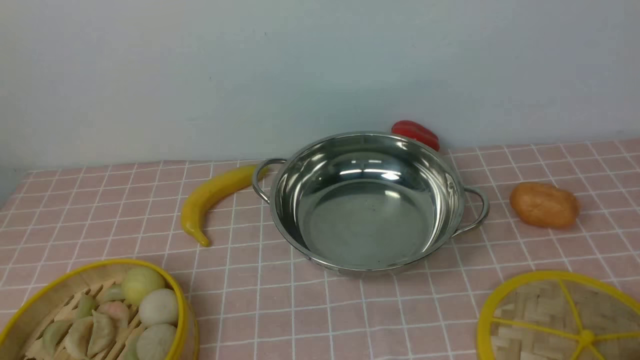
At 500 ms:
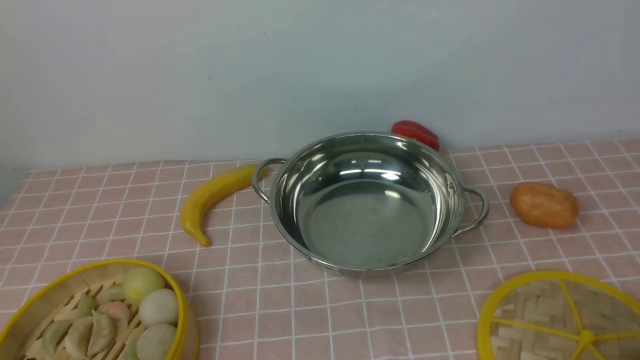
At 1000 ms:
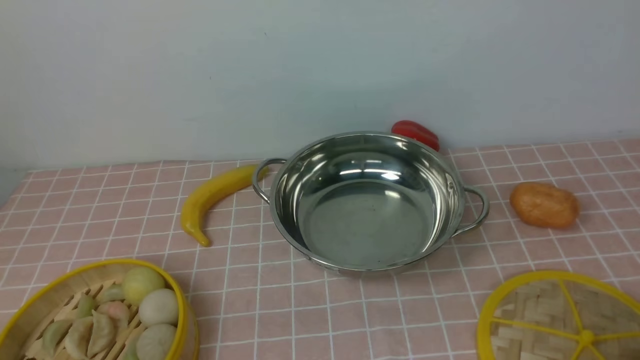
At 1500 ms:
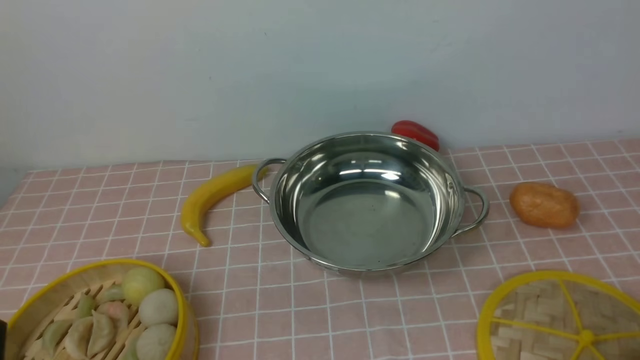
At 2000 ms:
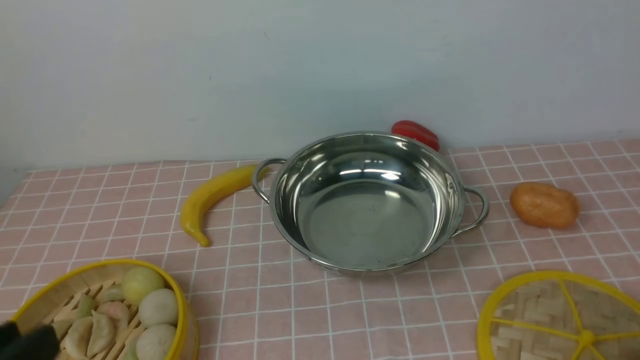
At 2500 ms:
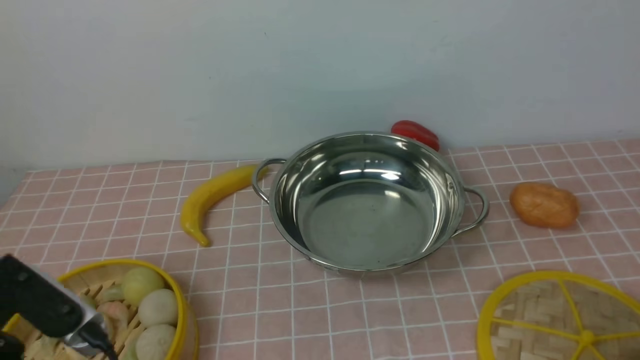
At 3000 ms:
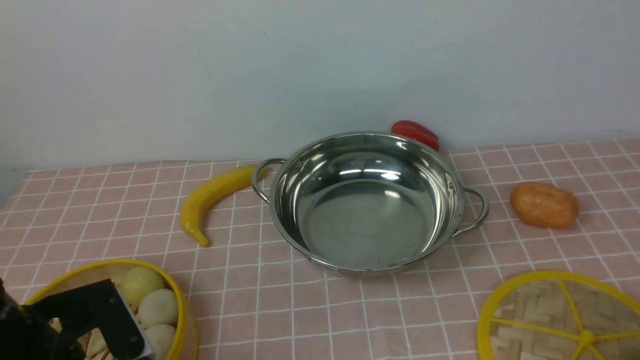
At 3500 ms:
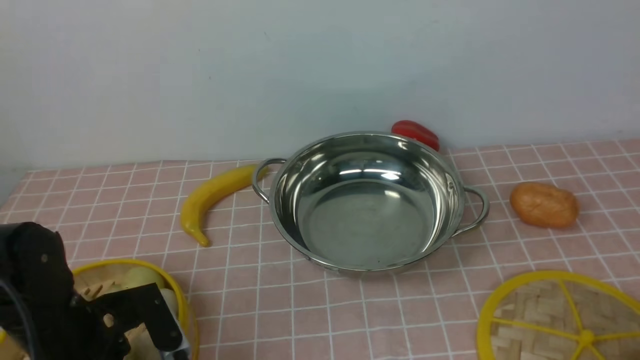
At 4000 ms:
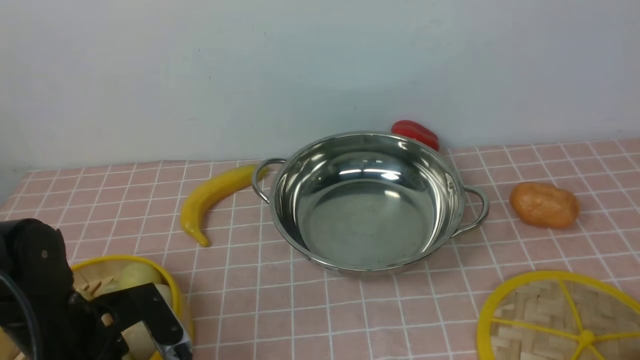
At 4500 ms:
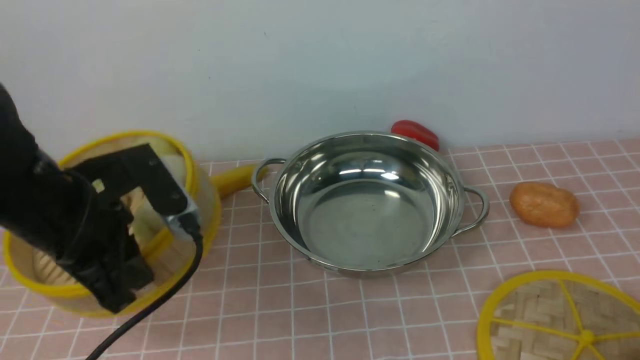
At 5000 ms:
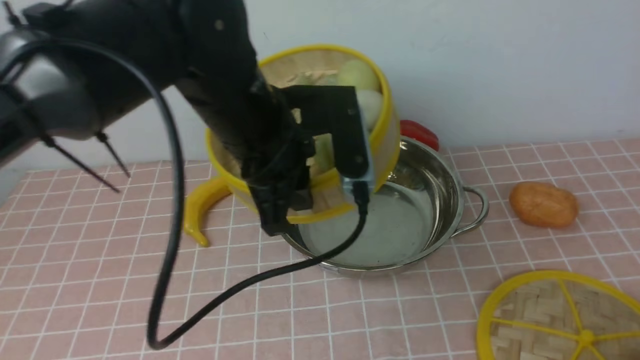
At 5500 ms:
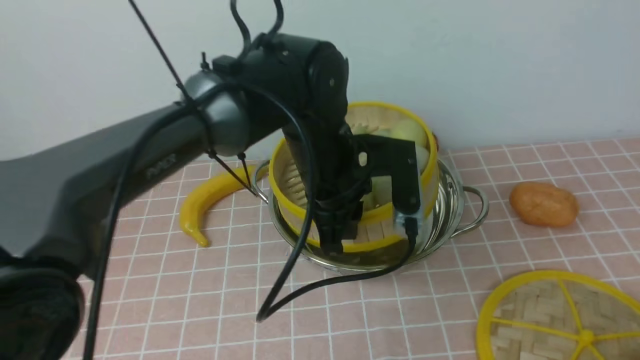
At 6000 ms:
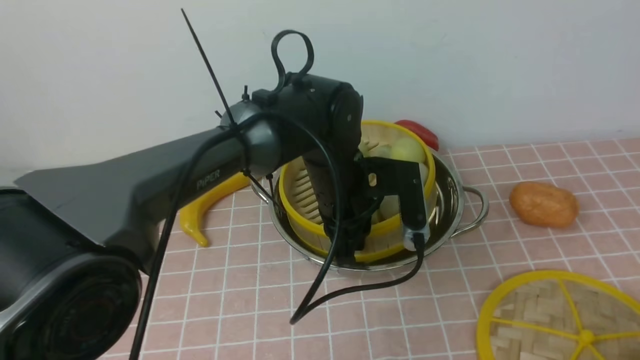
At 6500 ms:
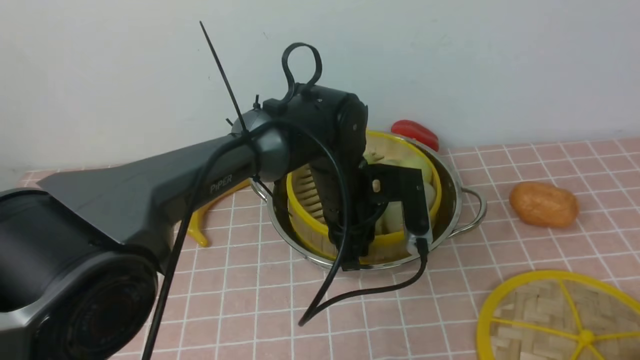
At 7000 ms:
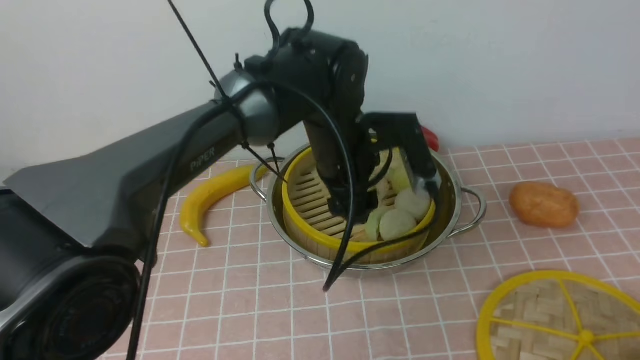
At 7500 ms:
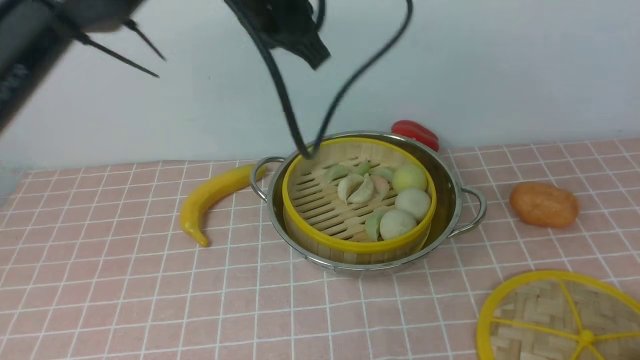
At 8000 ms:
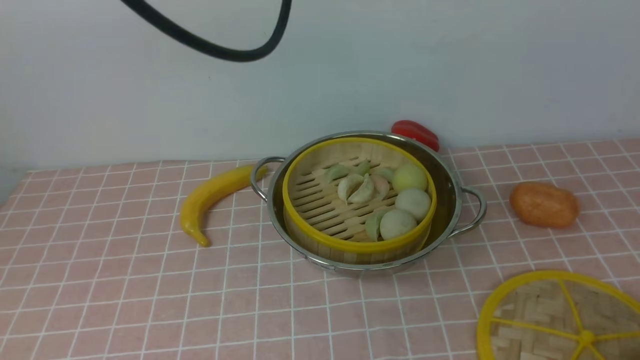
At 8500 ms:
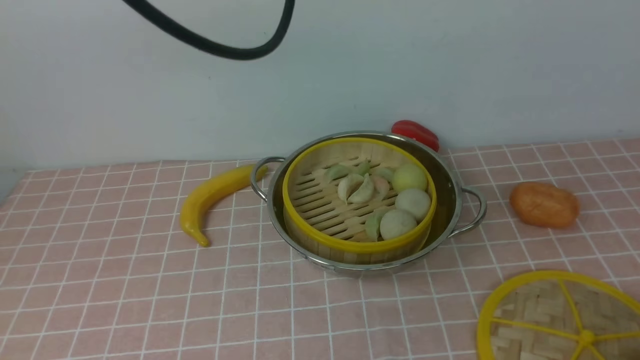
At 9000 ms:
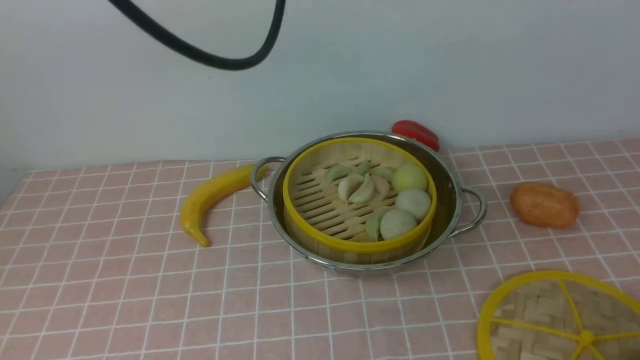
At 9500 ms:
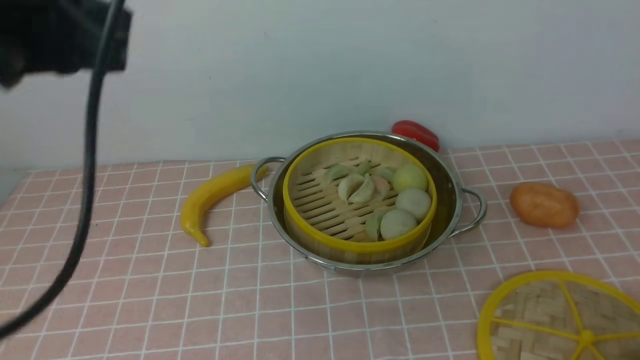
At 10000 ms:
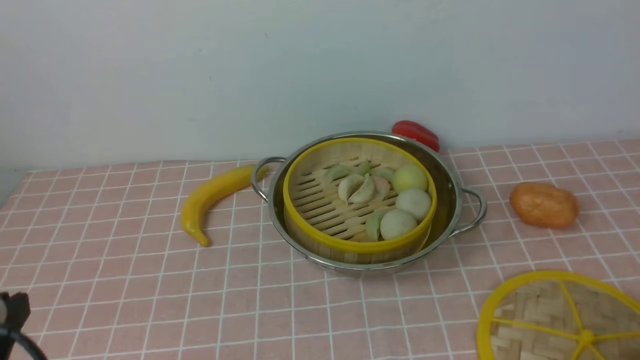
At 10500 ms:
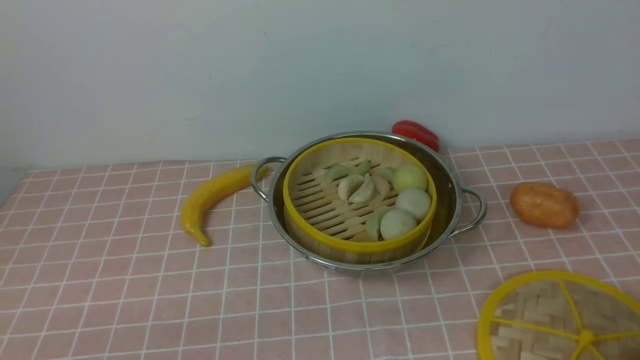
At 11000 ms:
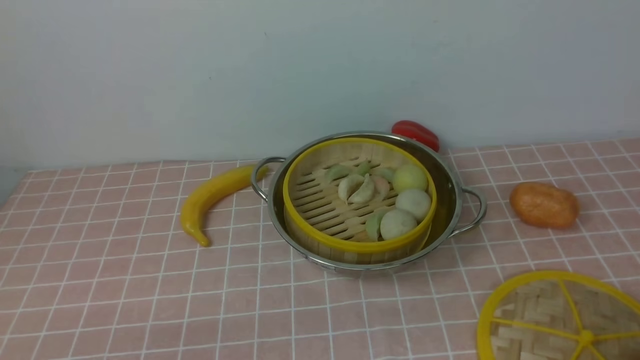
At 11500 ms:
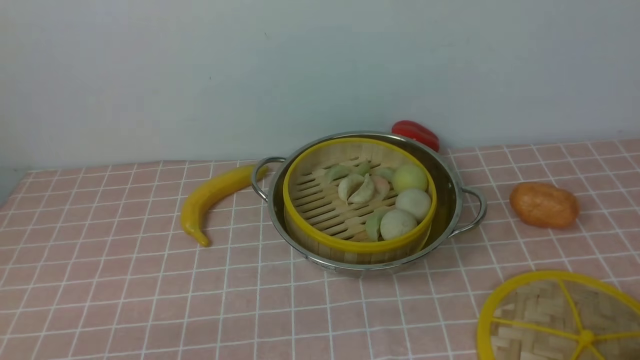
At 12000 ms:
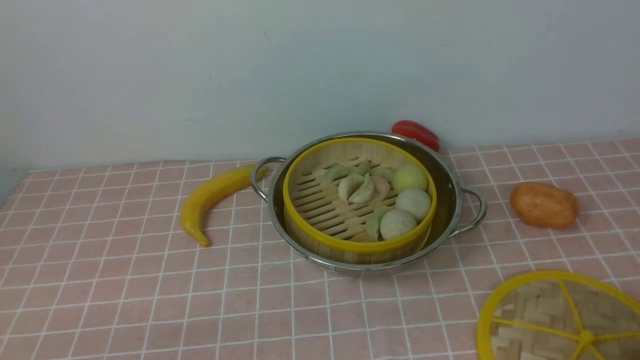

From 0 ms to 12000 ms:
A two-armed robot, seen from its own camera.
Task of the whole recording: place the steamer in the pot on the pink tablecloth, and put the lid on the steamer.
Step, from 0 ms to 4000 ms: use the left arm to lift the steamer closest to it.
Step, from 4500 ms to 6500 ms: use the left arm to put the steamer into the iron steamer pot in the middle.
From 2000 ms to 4000 ms: The left gripper travels forward and downward by some 20 cm.
From 4000 ms to 6000 ms: The left gripper moves to the right and forward, roughly 30 cm.
From 6000 ms to 8000 ms: The left gripper is displaced upward by about 30 cm, and opens and closes again.
From 8000 ms to 10000 ms: The left gripper shifts some 35 cm backward, downward and to the left.
From 10000 ms to 12000 ms: The left gripper moves downward, roughly 10 cm.

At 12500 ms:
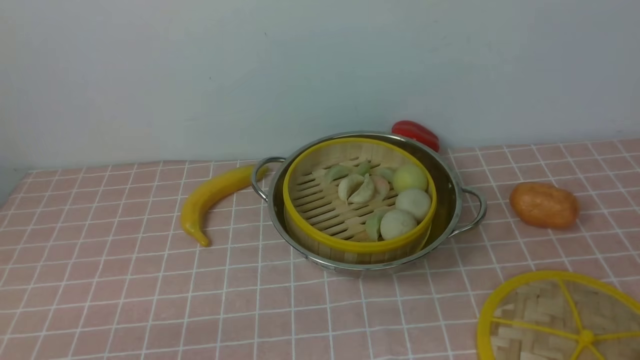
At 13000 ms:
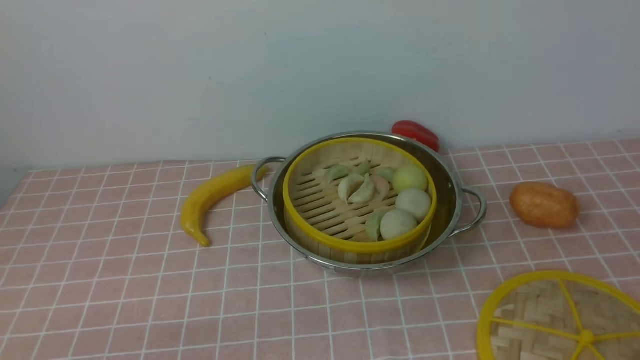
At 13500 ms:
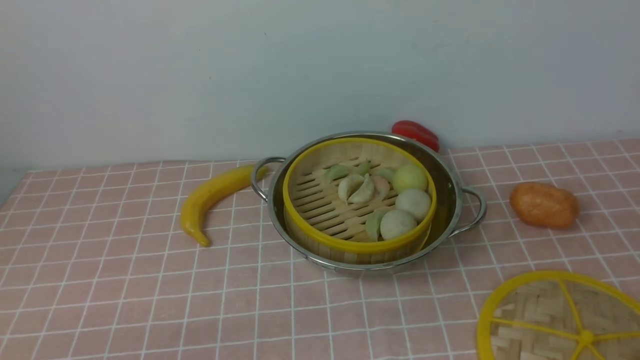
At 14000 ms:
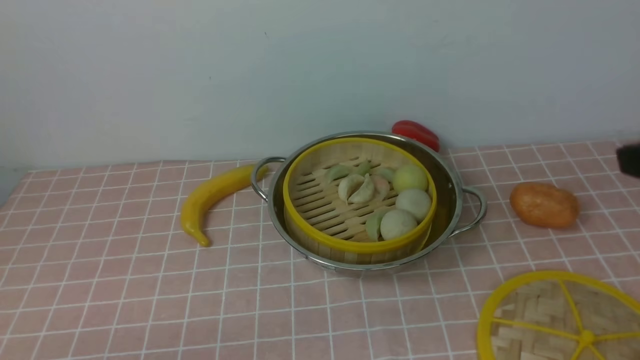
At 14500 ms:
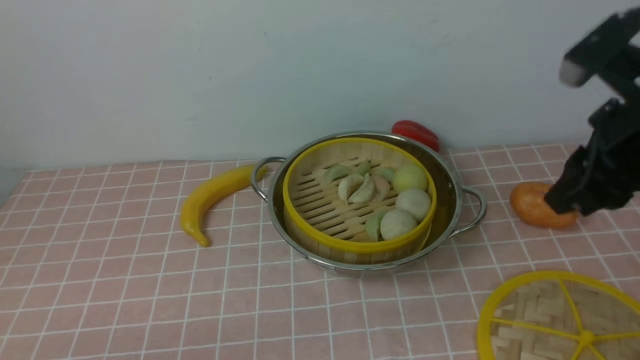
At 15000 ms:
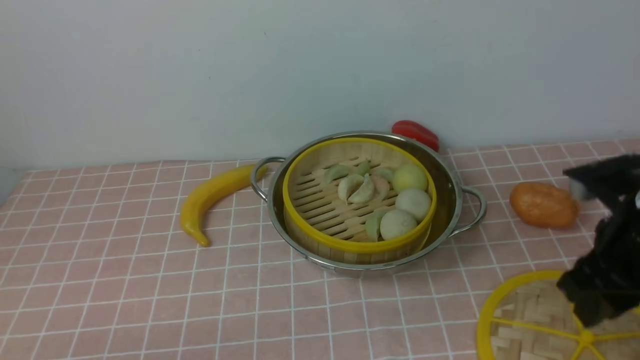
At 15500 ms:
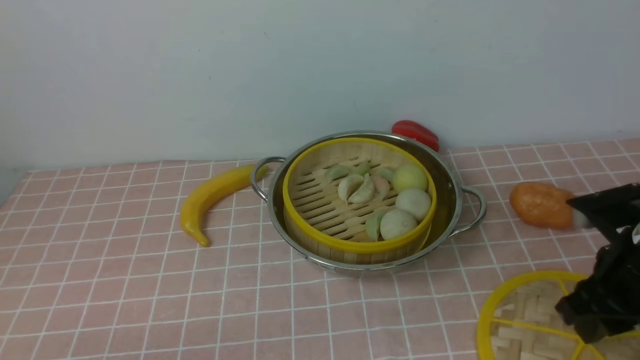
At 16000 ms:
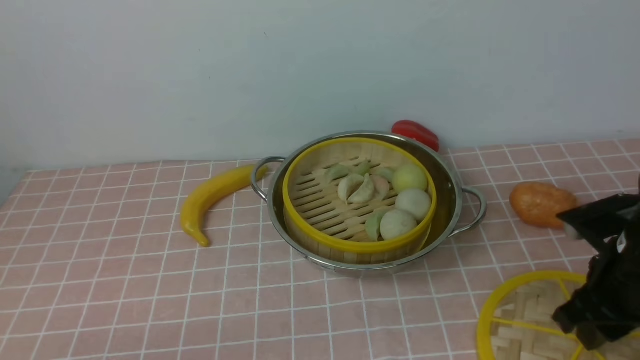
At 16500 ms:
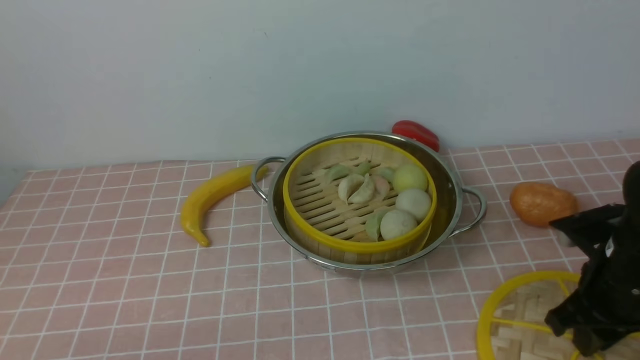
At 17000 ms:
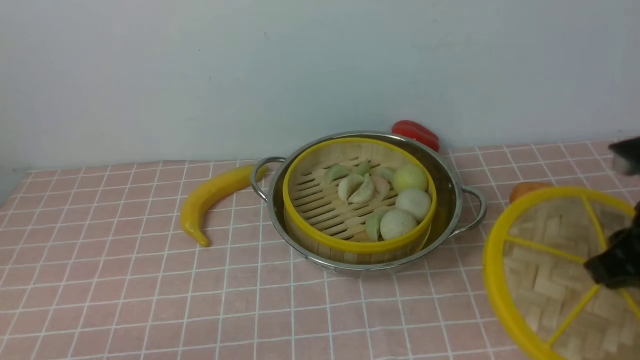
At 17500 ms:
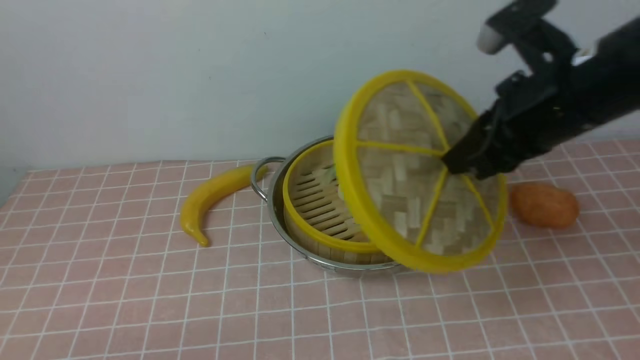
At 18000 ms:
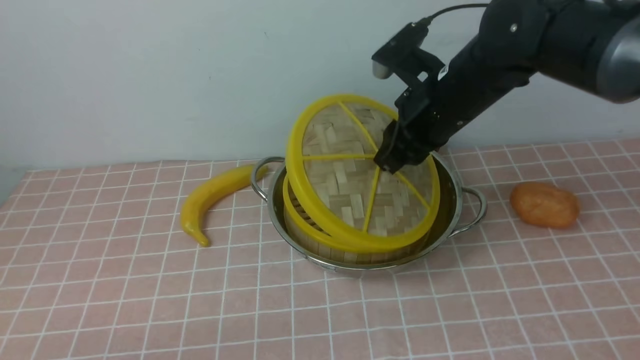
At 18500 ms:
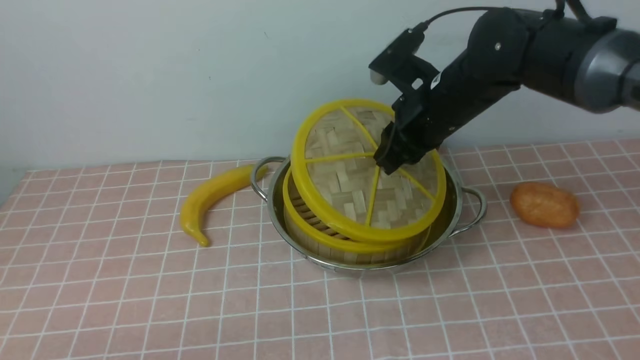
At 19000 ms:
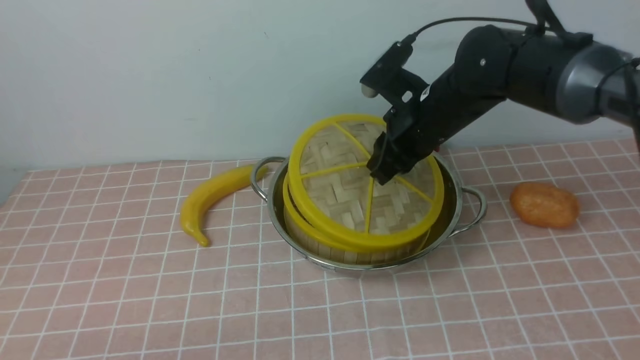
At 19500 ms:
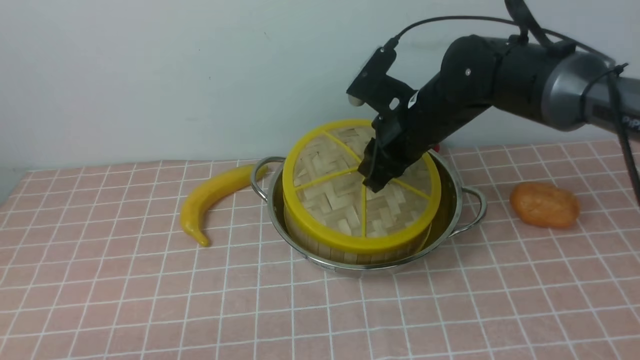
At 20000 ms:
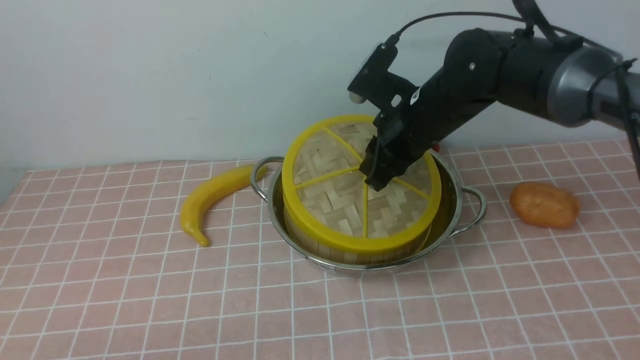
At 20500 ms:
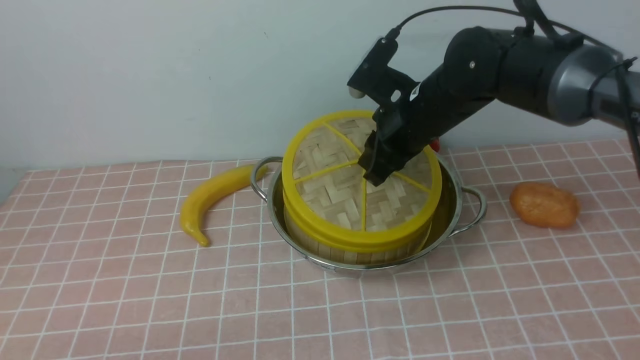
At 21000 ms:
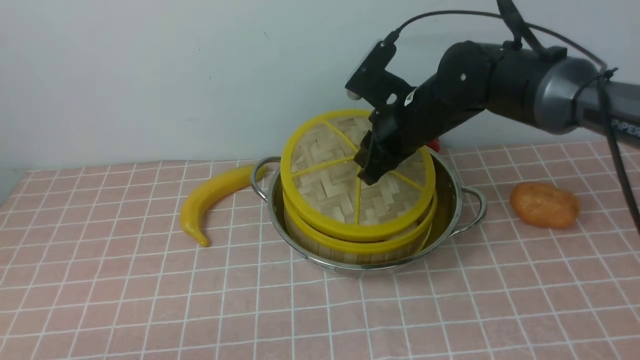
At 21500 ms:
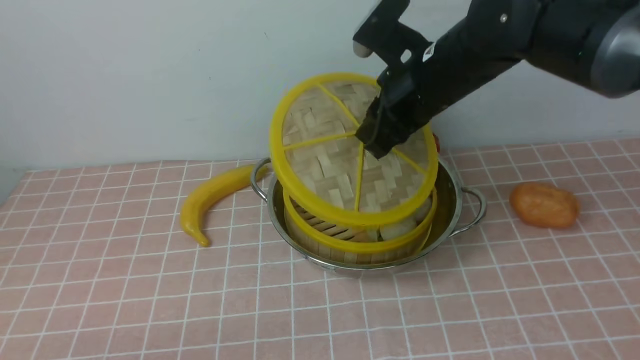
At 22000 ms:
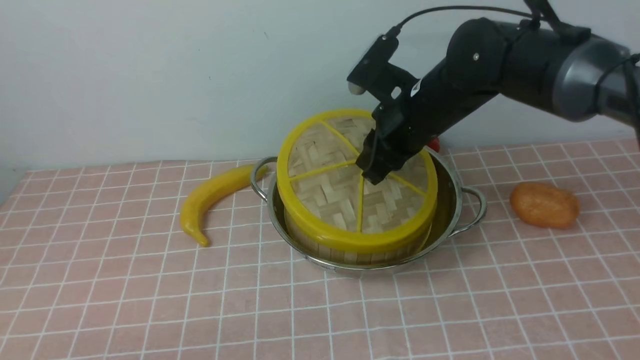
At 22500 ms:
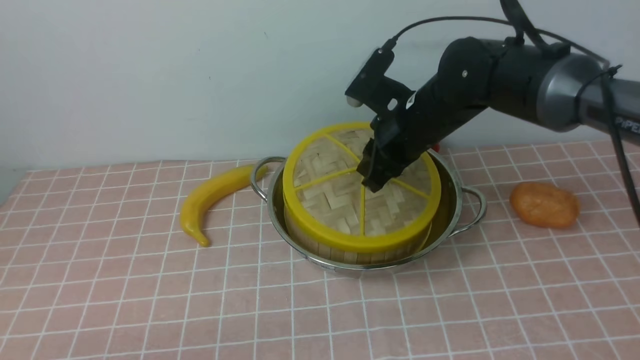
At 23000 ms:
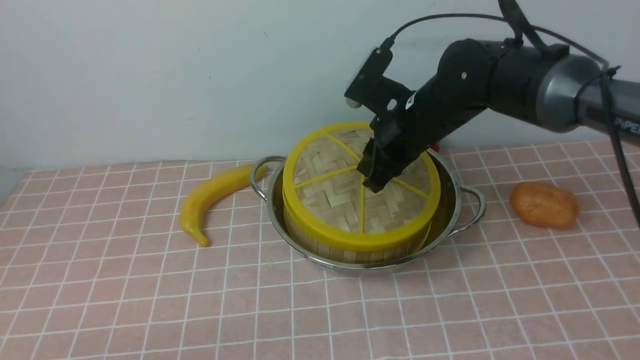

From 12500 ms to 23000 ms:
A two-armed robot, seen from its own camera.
Task of the whole recording: place the steamer in the pot on the pink tablecloth, and put the lid on the steamer.
Step, from 12500 ms to 16500 ms: use the right arm to lift the lid of the steamer.
From 12500 ms to 14500 ms: The right gripper goes approximately 25 cm forward.
From 14500 ms to 16500 ms: The right gripper shifts roughly 15 cm downward.
From 16500 ms to 19000 ms: The right gripper moves to the left, forward and upward, roughly 25 cm.
From 19000 ms to 23000 ms: The grippers stay close to where they were, moving slightly.
